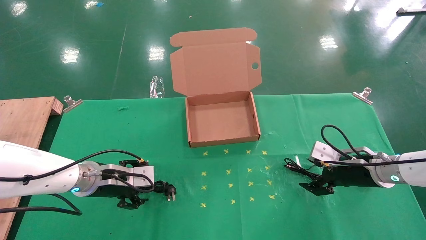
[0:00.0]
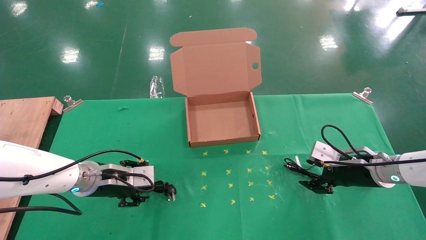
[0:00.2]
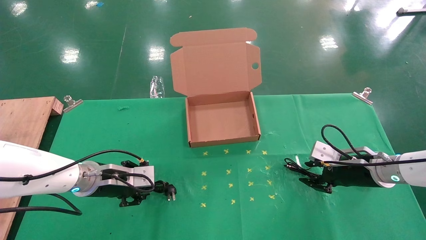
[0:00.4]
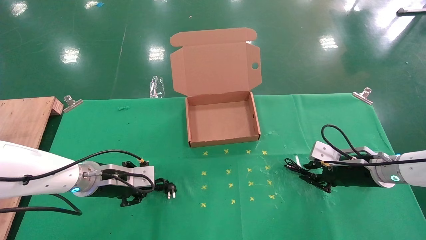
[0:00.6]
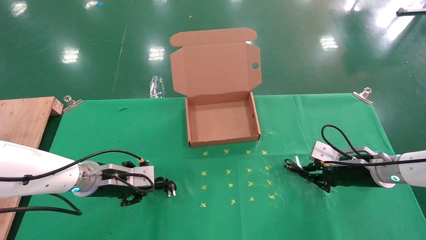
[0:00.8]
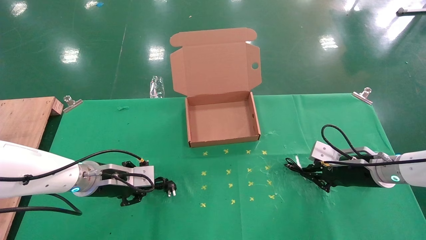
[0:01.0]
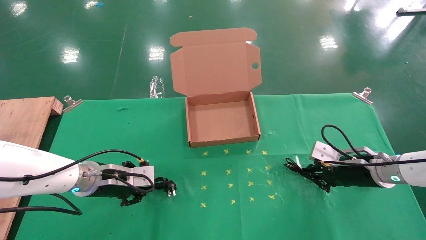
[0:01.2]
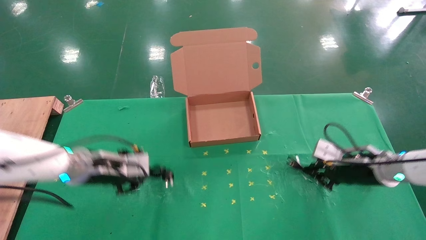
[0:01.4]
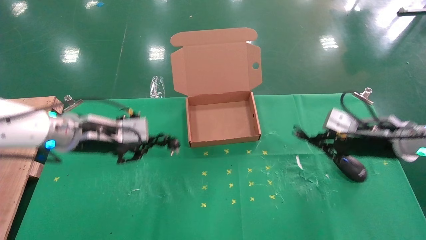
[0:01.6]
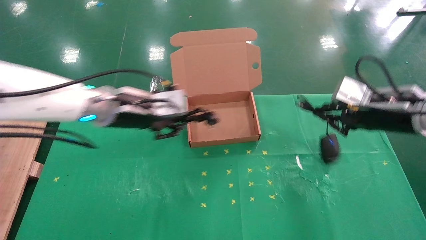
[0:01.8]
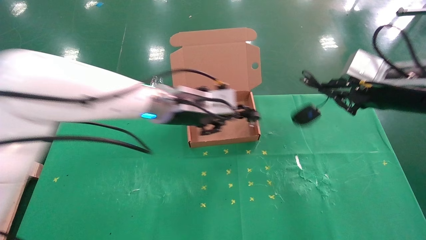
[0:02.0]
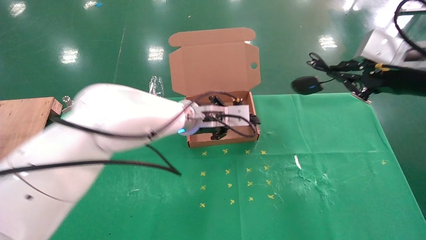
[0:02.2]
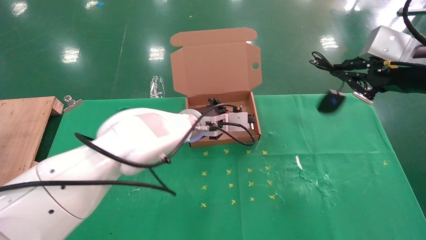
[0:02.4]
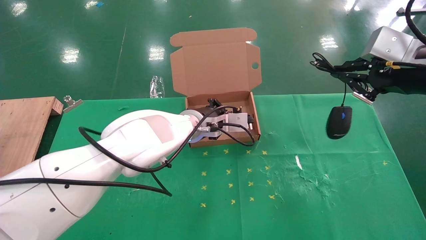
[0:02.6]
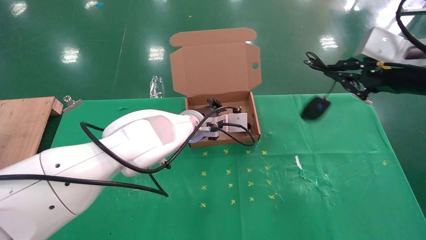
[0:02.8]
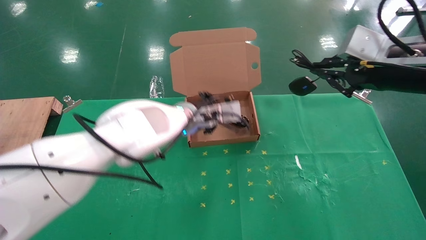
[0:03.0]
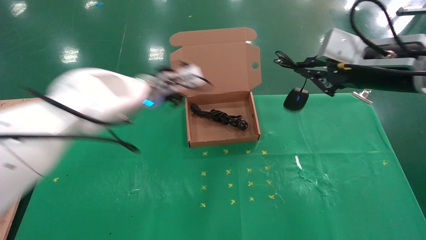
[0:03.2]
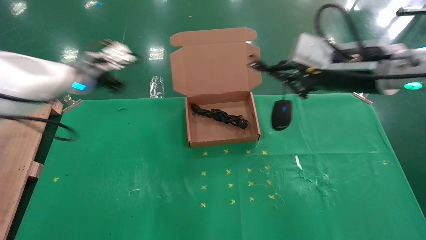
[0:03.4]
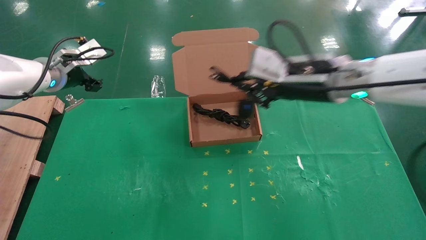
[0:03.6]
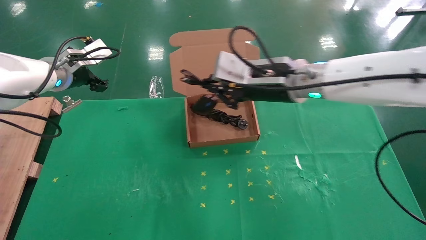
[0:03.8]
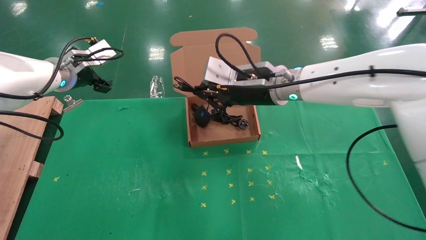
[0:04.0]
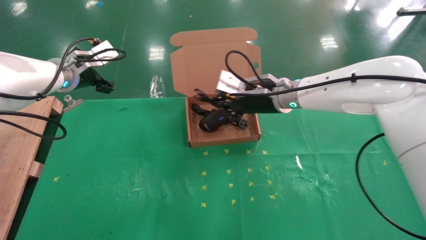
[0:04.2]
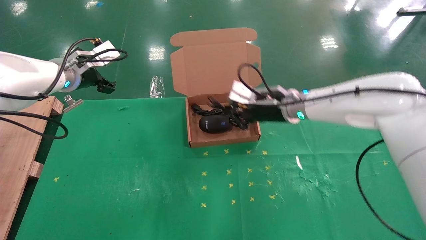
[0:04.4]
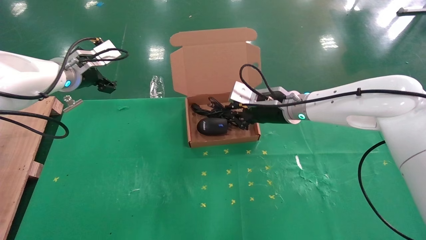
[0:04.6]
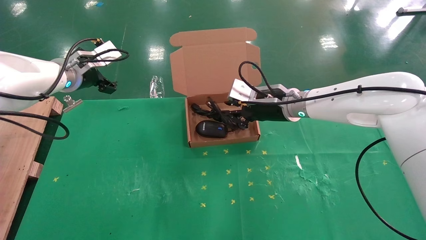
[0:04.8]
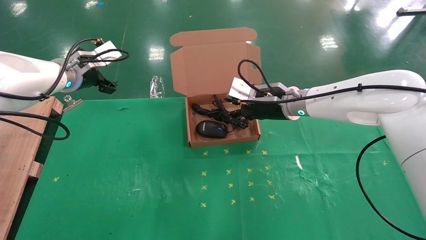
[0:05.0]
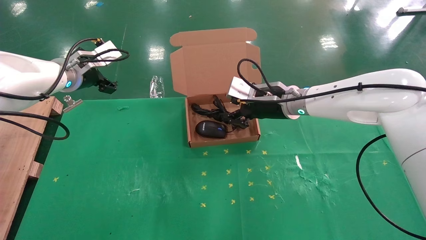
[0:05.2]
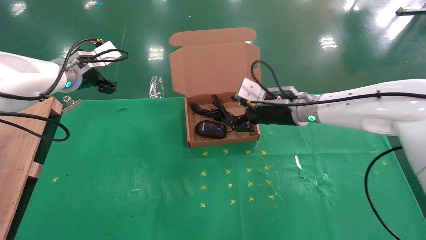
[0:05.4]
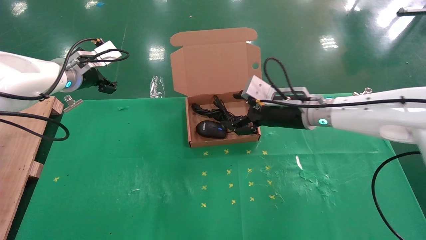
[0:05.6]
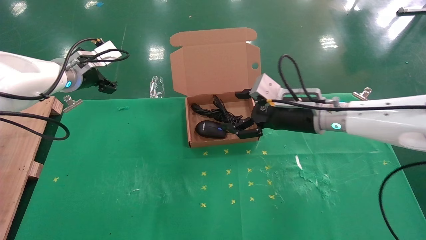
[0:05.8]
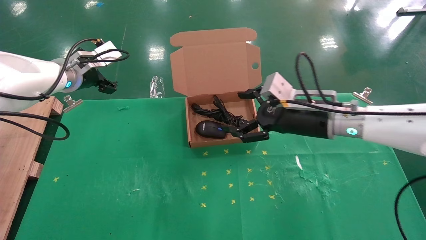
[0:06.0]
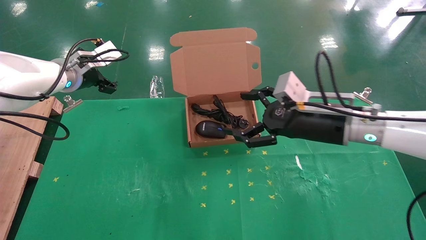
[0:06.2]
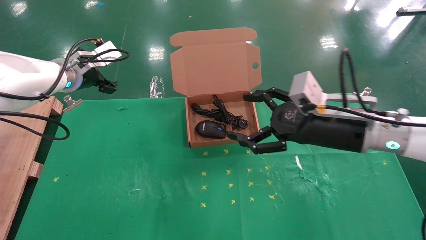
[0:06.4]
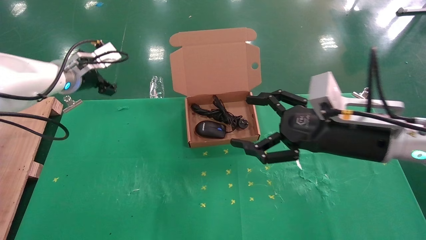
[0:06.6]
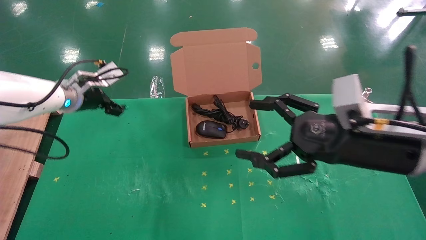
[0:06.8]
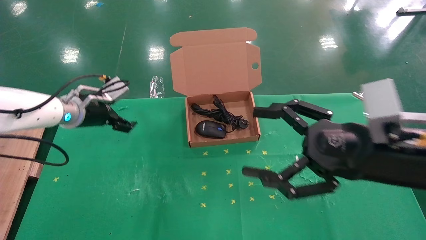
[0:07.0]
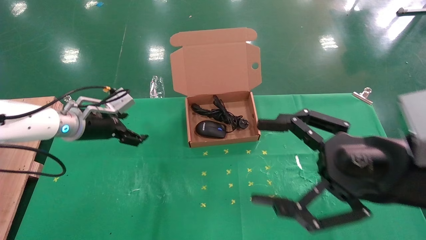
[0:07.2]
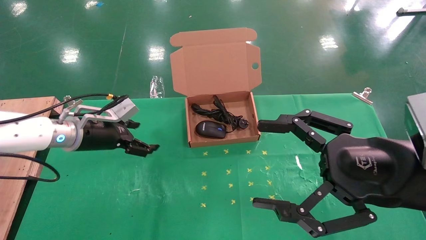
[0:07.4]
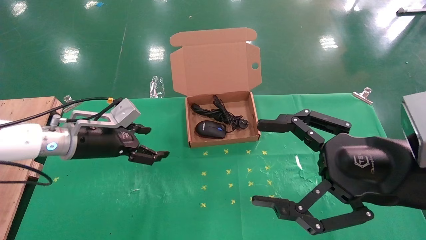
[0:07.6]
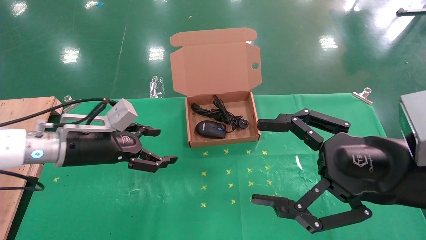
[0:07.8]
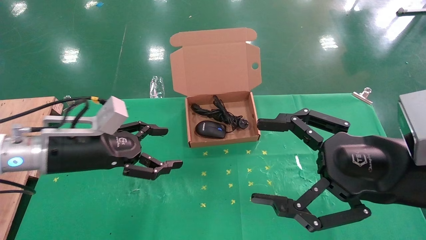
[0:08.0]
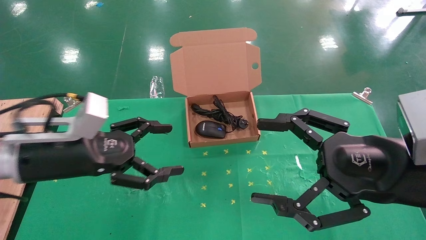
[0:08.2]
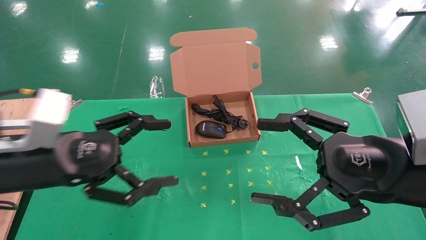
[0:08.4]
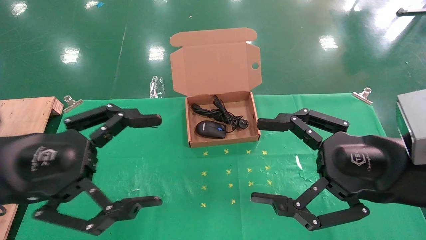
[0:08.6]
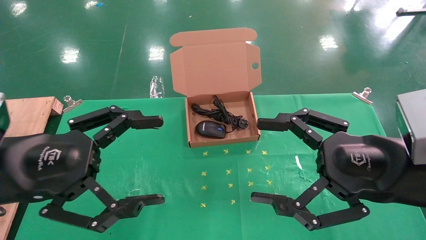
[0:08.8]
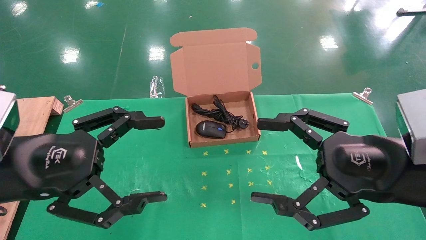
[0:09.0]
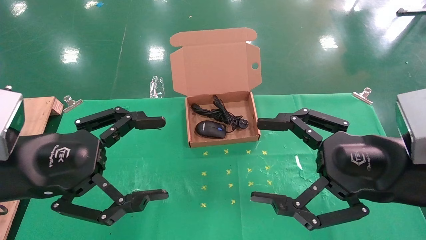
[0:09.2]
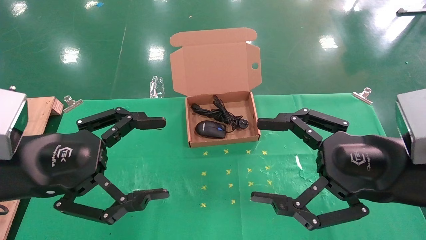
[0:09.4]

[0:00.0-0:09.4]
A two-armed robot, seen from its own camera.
Task of the whole recording: grasp data cable left put into box grasp mouse right put into box.
Step, 0:01.2 to 0:04.8: Place the mouse and power cord into the box.
0:00.0 to 0:01.6: Both grippers move upward, approximately 10 cm. The right gripper closes up. Meanwhile the left gripper closes its fingers.
0:01.6 to 0:03.2: The right gripper heads upward and to the left, covering about 15 cm. The left gripper moves forward, about 10 cm, and travels to the right and back again, some 20 cm each way.
0:03.2 to 0:04.8: The right gripper is displaced forward, to the left and downward by some 20 cm. Meanwhile the left gripper travels to the left by some 15 cm, and opens its fingers.
0:04.8 to 0:06.2: The right gripper moves backward and to the right, roughly 15 cm, and opens.
0:06.2 to 0:07.8: The right gripper goes about 15 cm backward. The left gripper moves backward and downward, roughly 15 cm.
0:07.8 to 0:09.4: The left gripper moves backward, roughly 15 cm.
